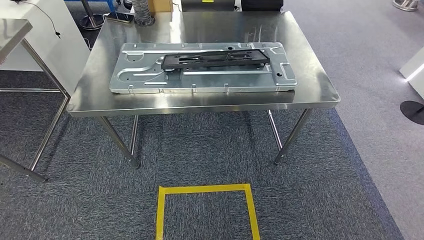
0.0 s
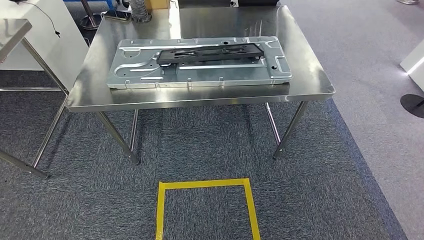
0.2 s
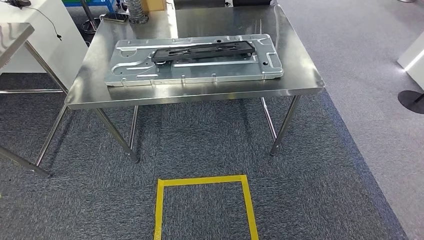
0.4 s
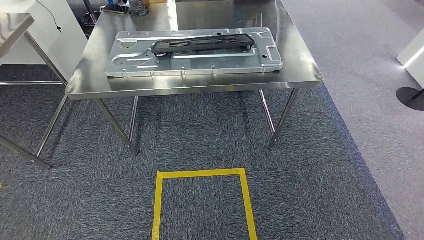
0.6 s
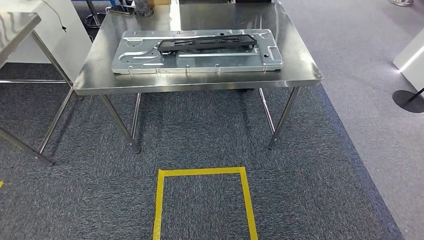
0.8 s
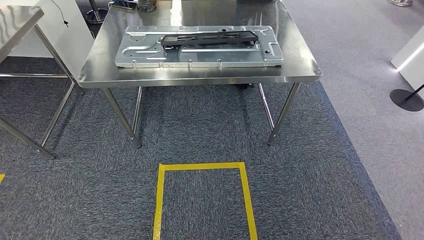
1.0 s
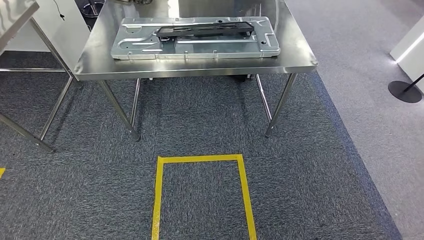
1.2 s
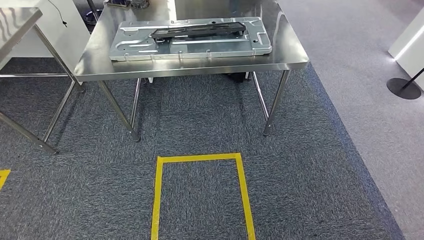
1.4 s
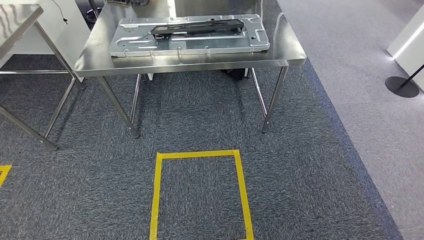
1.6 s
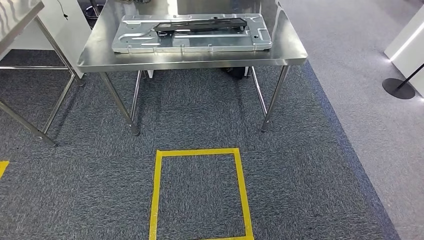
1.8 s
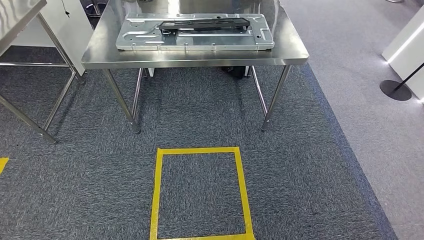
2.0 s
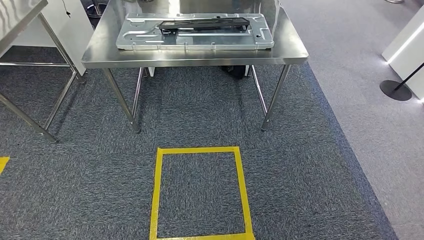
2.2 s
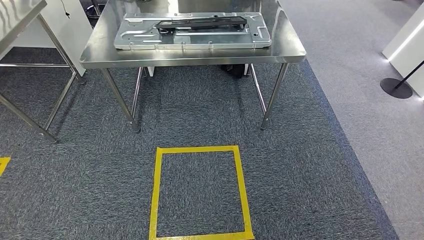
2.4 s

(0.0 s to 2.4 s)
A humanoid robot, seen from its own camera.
Step, 0.0 s - 2.4 s: Move to the initial position of the shelf.
1.2 s - 2.4 s: The hands stay close to where they were, moving slightly.
